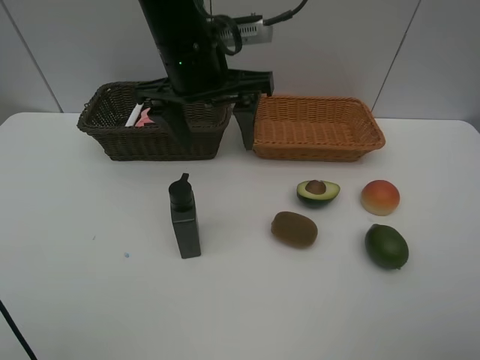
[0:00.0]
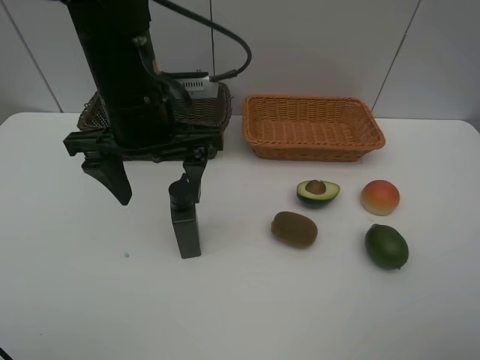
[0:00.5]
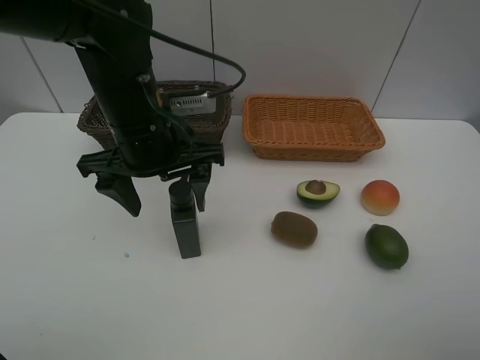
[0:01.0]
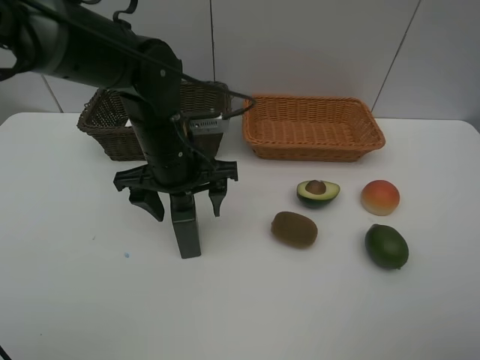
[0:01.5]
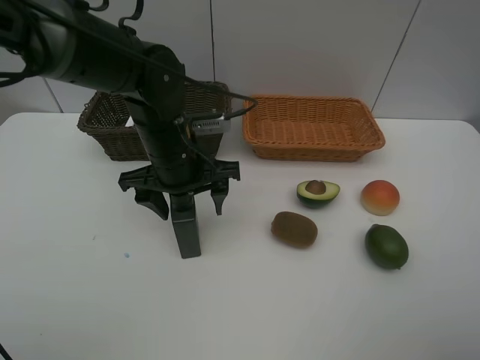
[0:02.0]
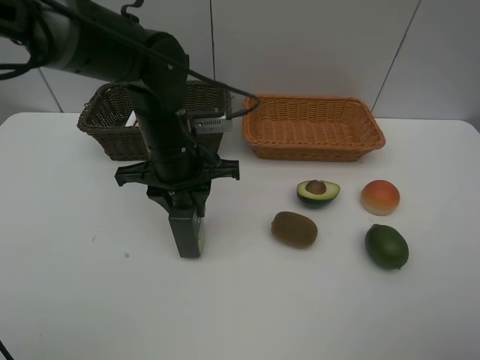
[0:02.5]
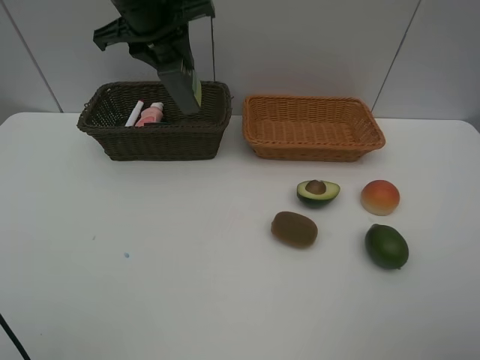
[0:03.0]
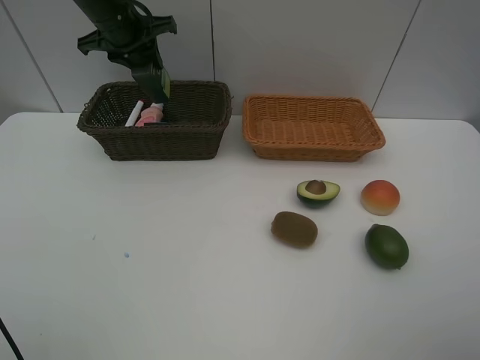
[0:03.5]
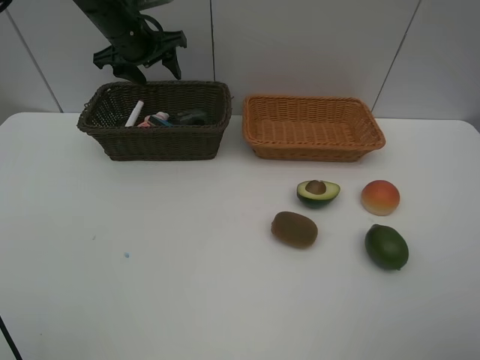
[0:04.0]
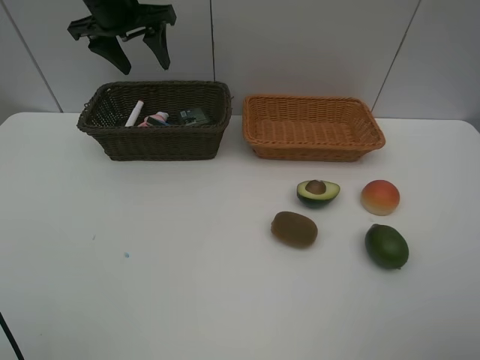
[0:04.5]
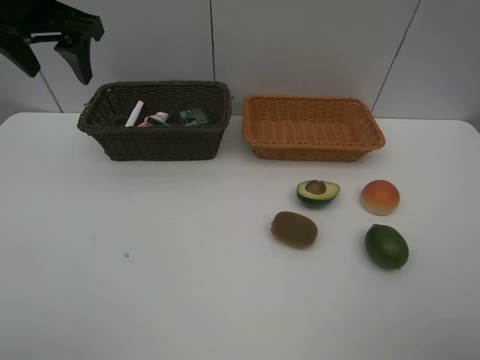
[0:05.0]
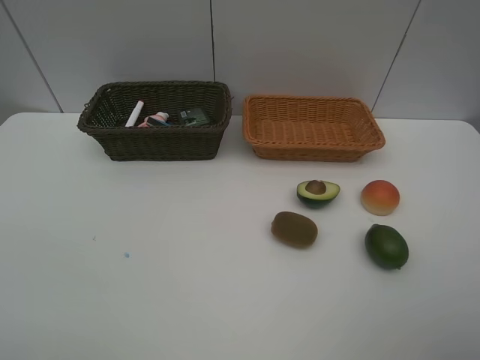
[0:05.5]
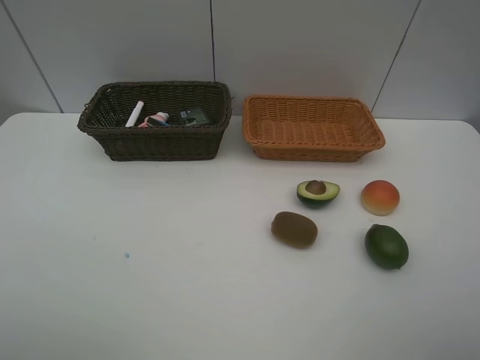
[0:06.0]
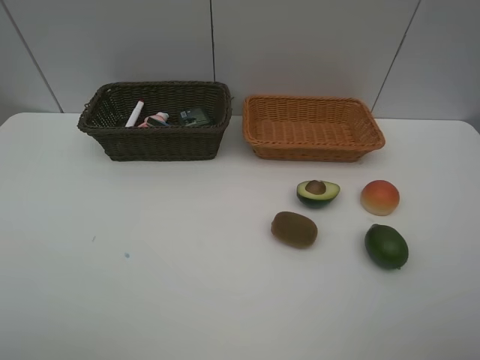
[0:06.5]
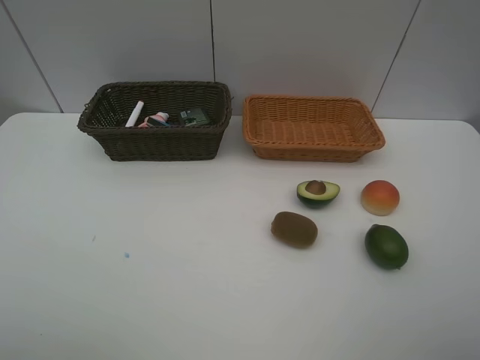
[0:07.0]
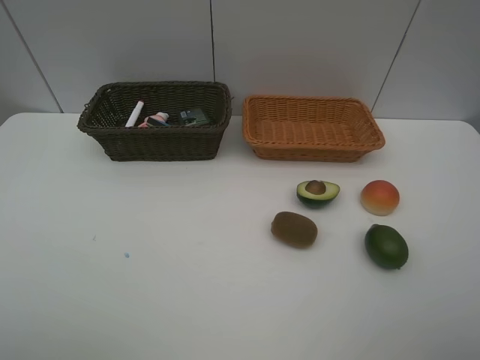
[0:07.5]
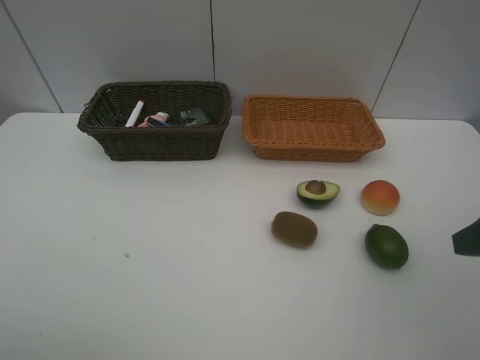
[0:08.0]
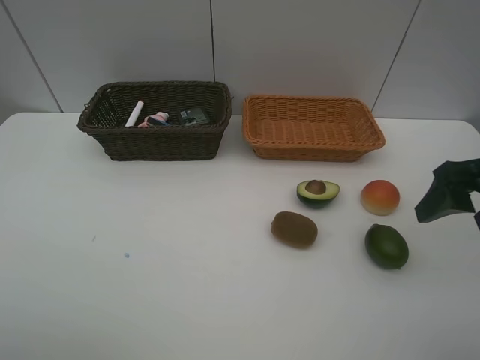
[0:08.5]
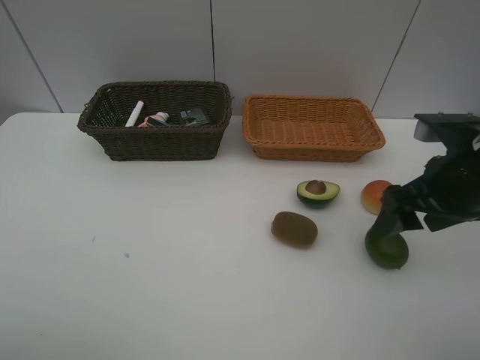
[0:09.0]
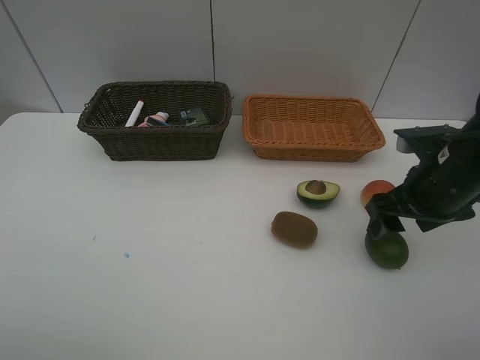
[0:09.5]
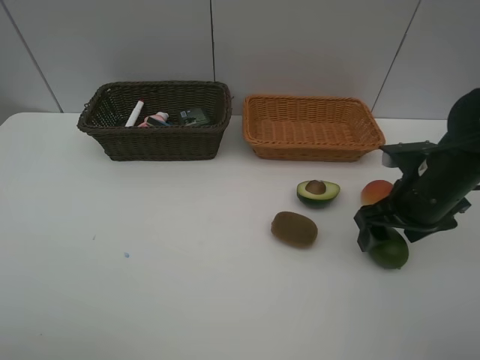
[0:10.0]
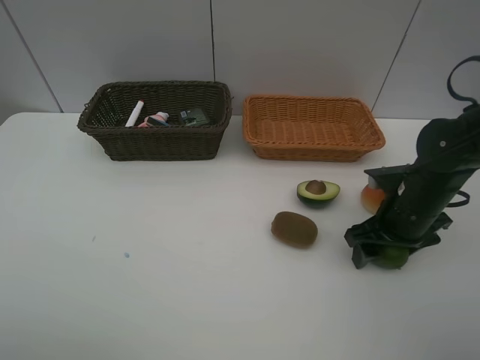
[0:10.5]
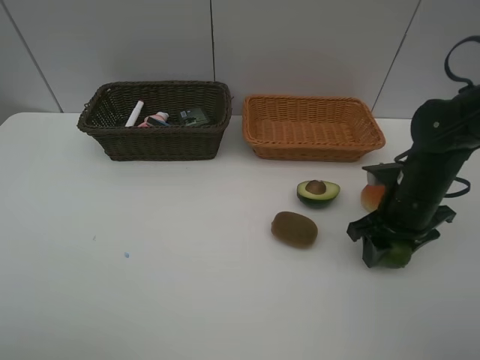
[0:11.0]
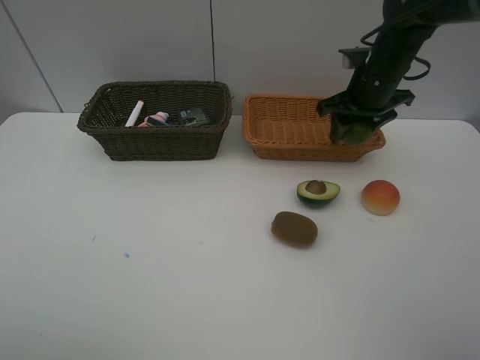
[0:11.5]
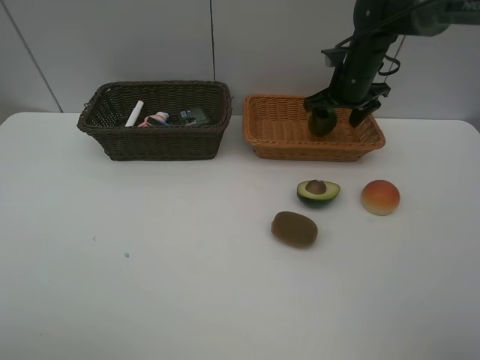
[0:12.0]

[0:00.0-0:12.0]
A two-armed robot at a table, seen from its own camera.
Task of the whole recording: Place multiple objects separately in different baskets.
Step, 0:00.0 to 0:02.5: Pick up the hard facial cleanser with left gripper.
Step, 0:03.0 to 0:04.0: Place the hard facial cleanser in the dark basket with left gripper.
Step, 0:04.5 to 0:11.0: Pick up the lime with right gripper.
0:00.0 to 0:02.0: The left gripper travels downward by roughly 10 cm.
0:02.0 to 0:04.0: The left gripper shifts approximately 25 cm forward, to the left and upward, and closes, then reopens.
0:04.0 to 0:06.0: The left gripper heads backward, covering approximately 40 cm.
0:08.0 to 0:10.0: The right gripper is displaced forward, downward and to the left by approximately 15 cm.
0:10.0 to 0:12.0: The right gripper travels forward by approximately 20 cm, and closes and opens again.

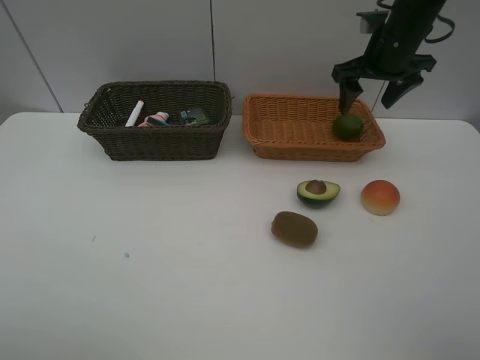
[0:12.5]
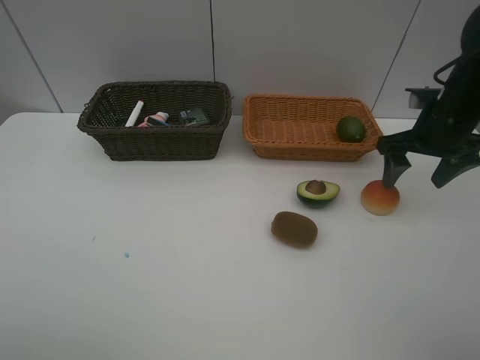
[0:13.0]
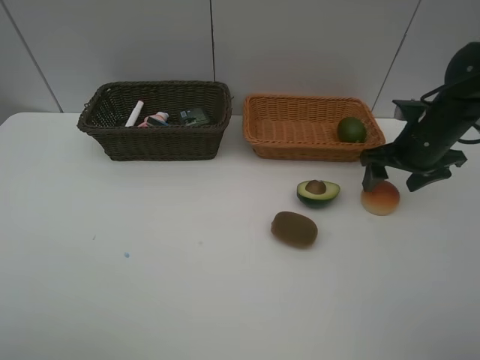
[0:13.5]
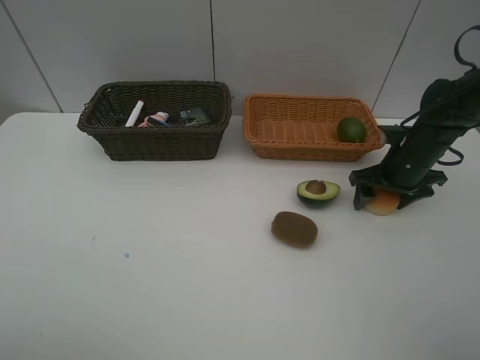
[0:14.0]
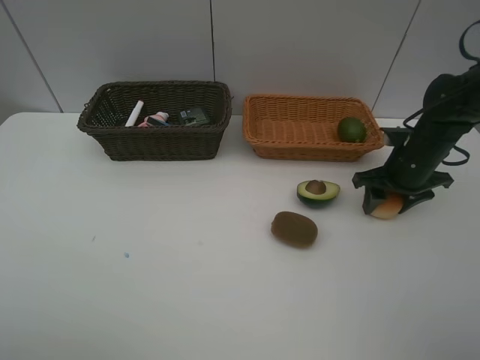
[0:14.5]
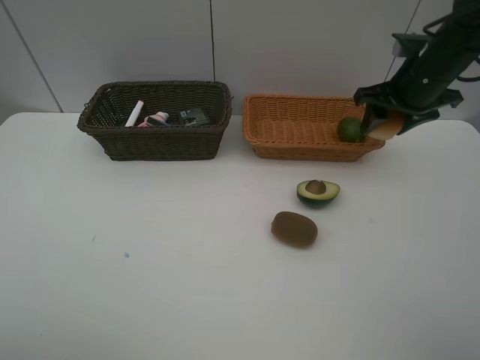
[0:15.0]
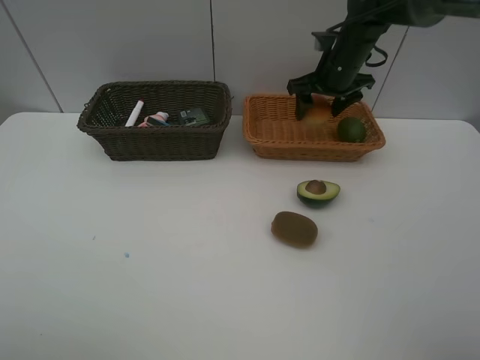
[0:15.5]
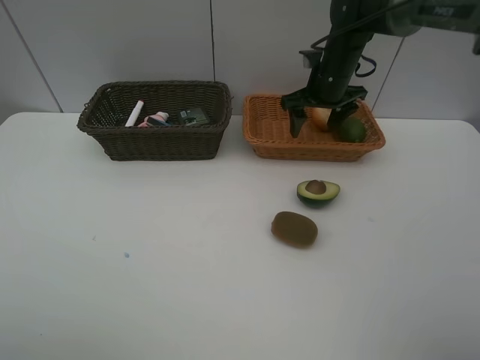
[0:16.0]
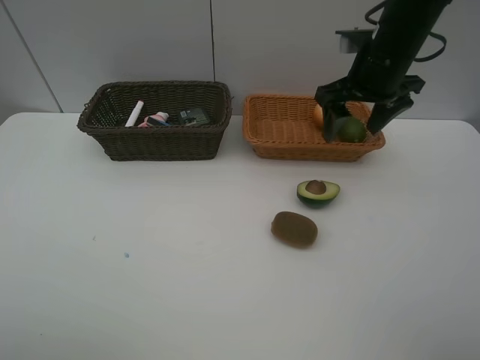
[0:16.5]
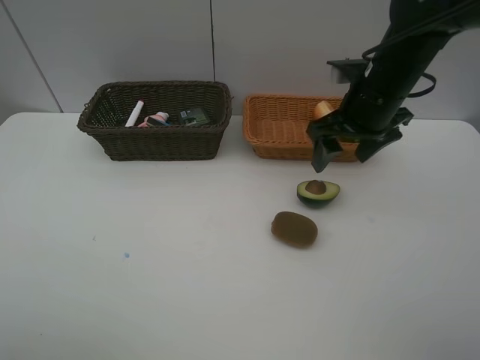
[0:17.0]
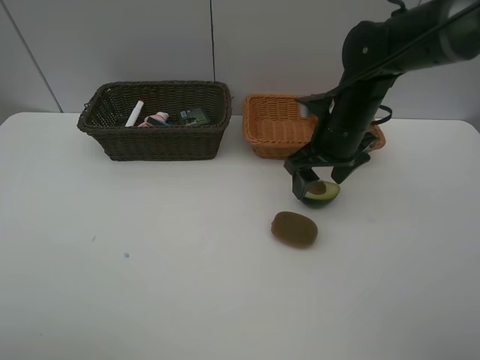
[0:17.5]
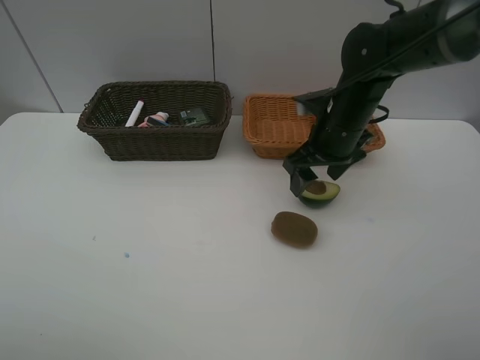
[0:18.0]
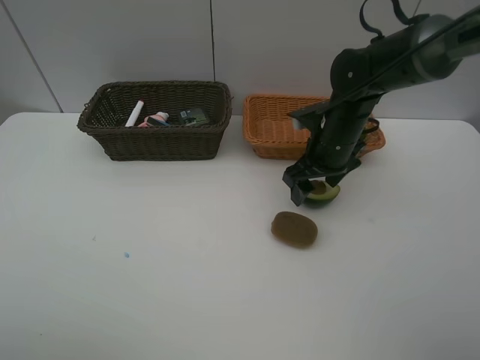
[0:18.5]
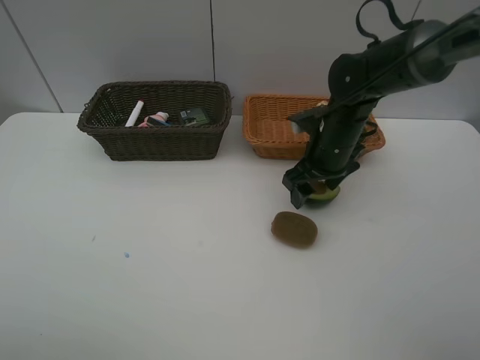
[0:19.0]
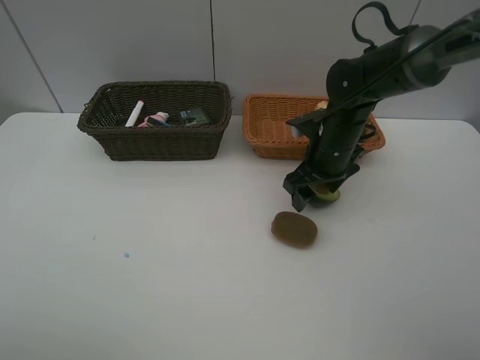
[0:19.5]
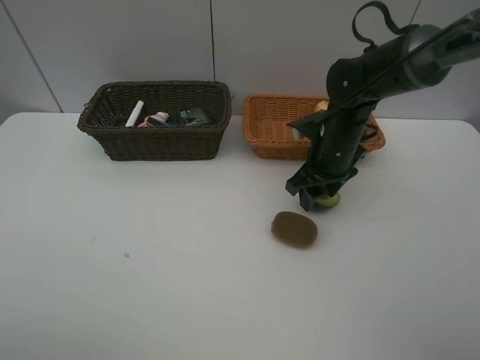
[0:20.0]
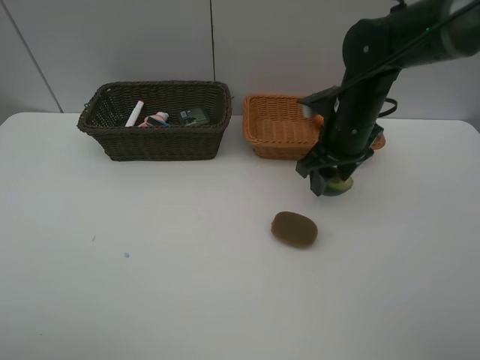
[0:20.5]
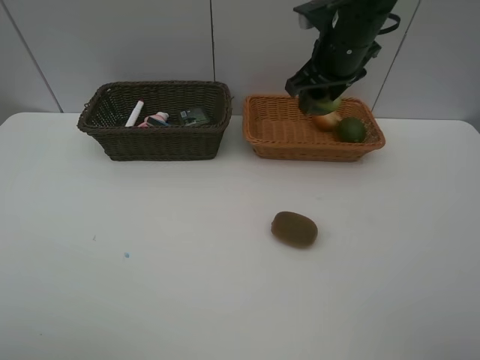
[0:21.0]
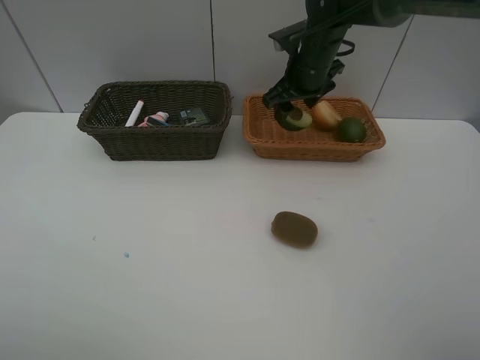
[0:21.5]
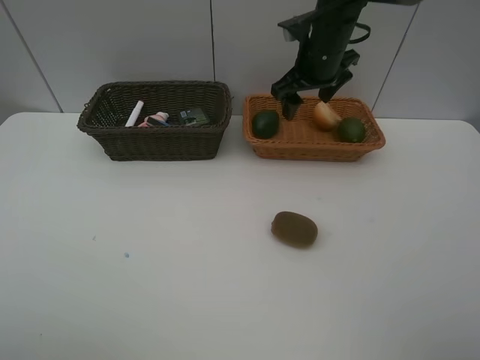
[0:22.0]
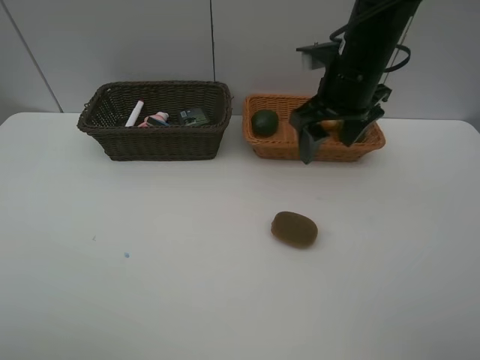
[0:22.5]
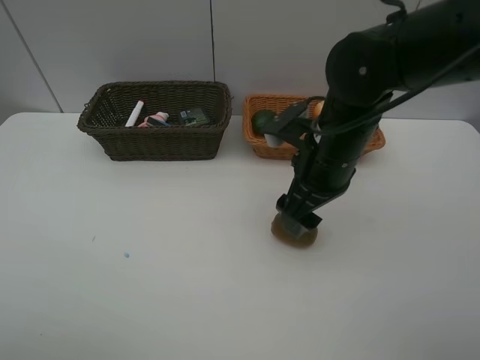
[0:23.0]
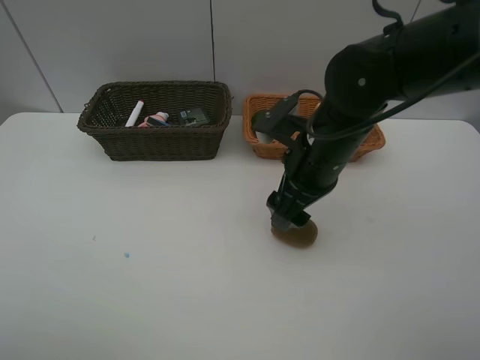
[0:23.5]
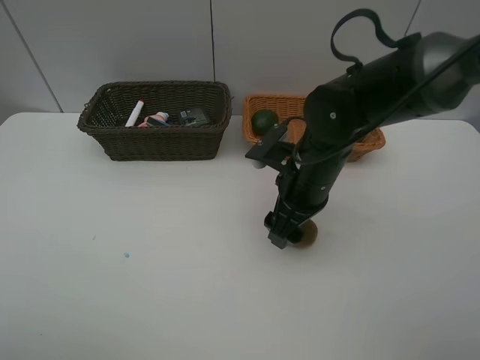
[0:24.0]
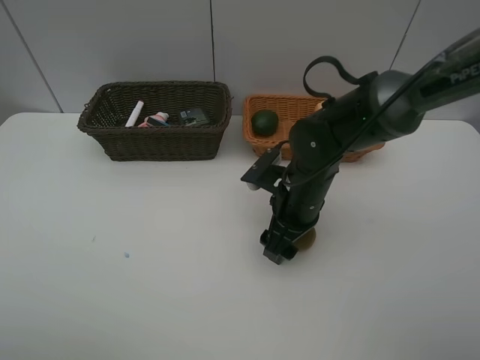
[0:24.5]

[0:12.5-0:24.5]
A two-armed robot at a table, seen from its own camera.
Task of the whole recording: Place multiple objects separately in different baskets.
Step, 0:12.5 to 0:14.5: Pick up egg yolk pastry with right gripper.
Step, 0:15.0 to 0:16.0: Place the egg yolk pastry in the light basket with right gripper.
Step, 0:16.5 to 0:20.0: Pick up the avocado with right gripper.
Step, 0:20.5 to 0:21.5: Place the avocado in the light basket with right gripper.
0:12.5 to 0:14.5: The right gripper goes approximately 15 cm downward and backward, and closes its fingers.
0:14.5 to 0:16.5: The right gripper shifts roughly 15 cm upward and to the left, travels forward and back again, roughly 15 cm each way, and opens.
0:16.5 to 0:18.5: The right gripper shifts roughly 10 cm downward.
0:18.5 to 0:20.5: The right gripper closes up.
0:20.5 to 0:22.5: The right gripper heads upward, covering approximately 5 cm, goes forward and returns, roughly 10 cm each way, and opens up.
0:22.5 to 0:24.5: The right gripper moves downward, about 15 cm.

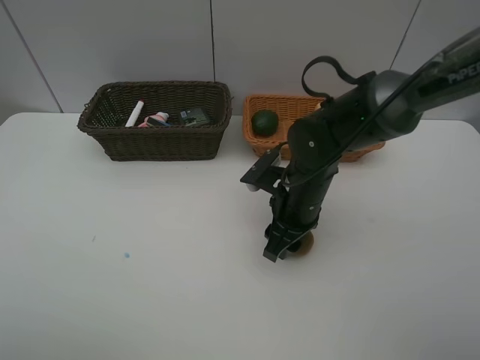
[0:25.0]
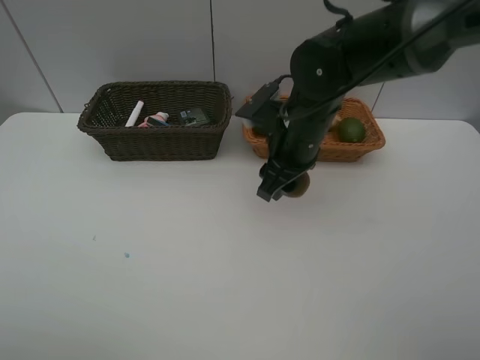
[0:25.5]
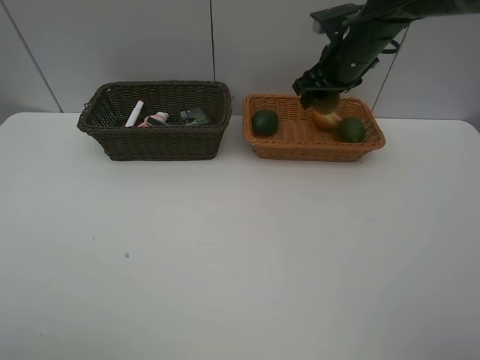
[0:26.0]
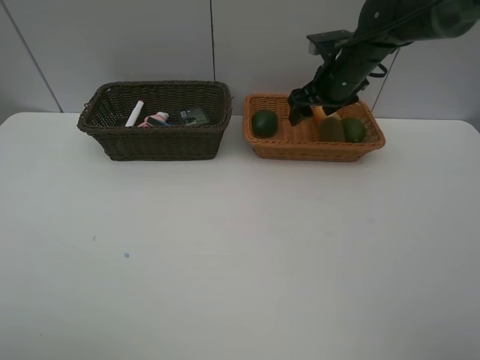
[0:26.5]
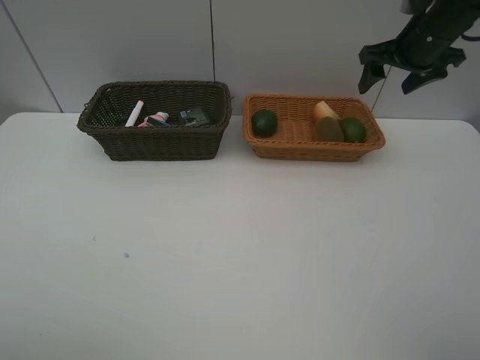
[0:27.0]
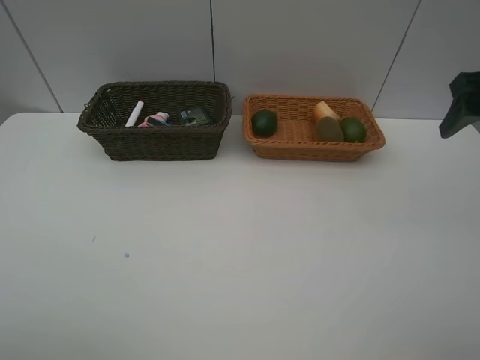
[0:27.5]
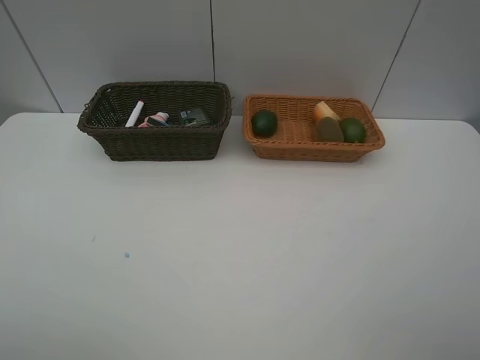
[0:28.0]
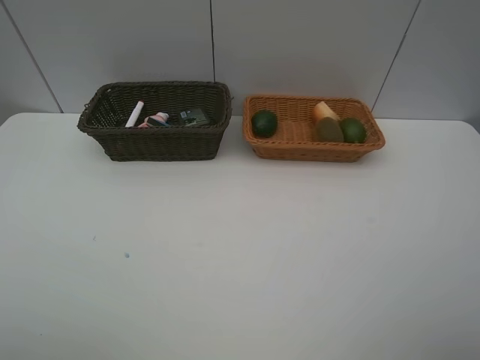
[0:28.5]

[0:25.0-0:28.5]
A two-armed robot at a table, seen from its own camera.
Task of the whole recording: Place multiple objects separately in different baskets.
Step, 0:25.5 to 0:26.5: Place the kiwi in the light basket with right gripper.
0:25.0 to 0:27.0: The right gripper goes about 30 cm to the right, upward and forward, and opens.
0:27.0 to 0:28.5: The right gripper is displaced backward by roughly 40 cm.
